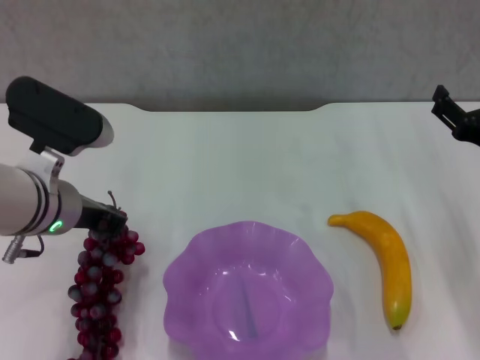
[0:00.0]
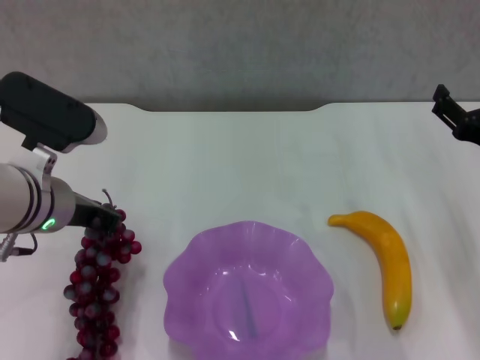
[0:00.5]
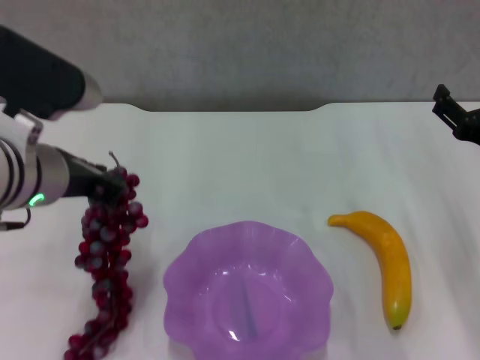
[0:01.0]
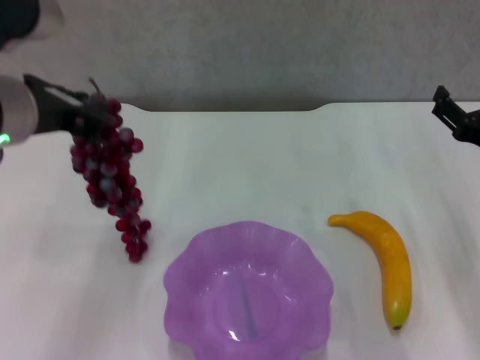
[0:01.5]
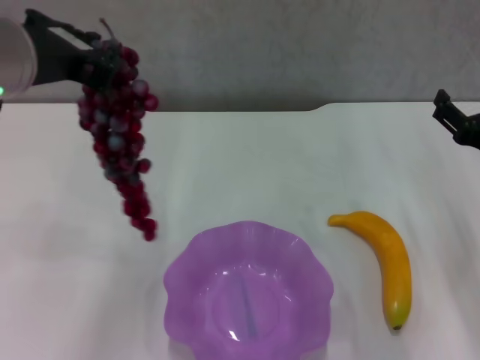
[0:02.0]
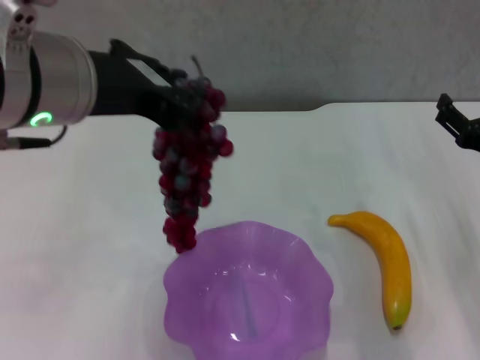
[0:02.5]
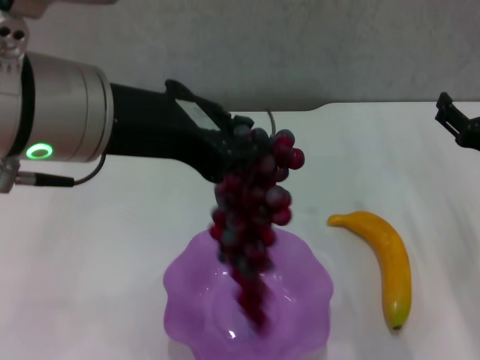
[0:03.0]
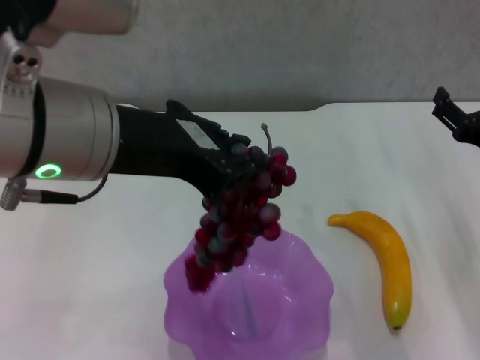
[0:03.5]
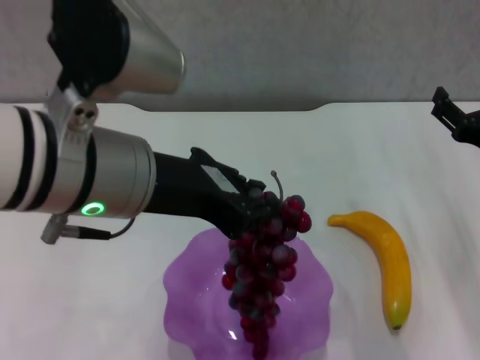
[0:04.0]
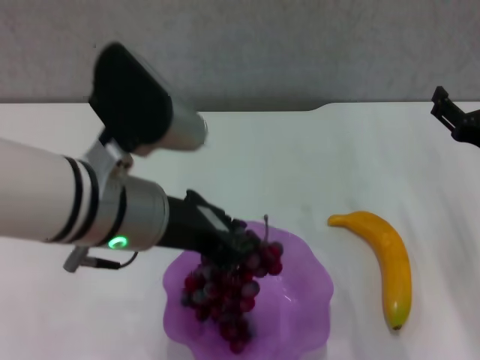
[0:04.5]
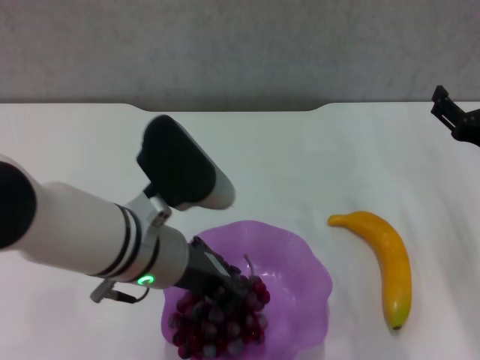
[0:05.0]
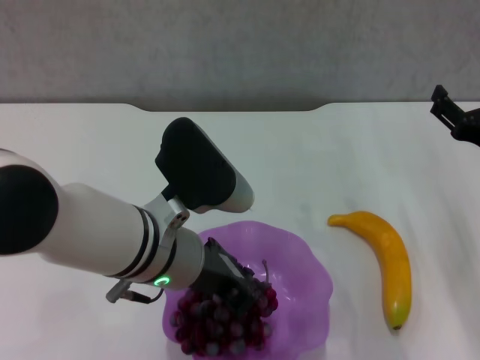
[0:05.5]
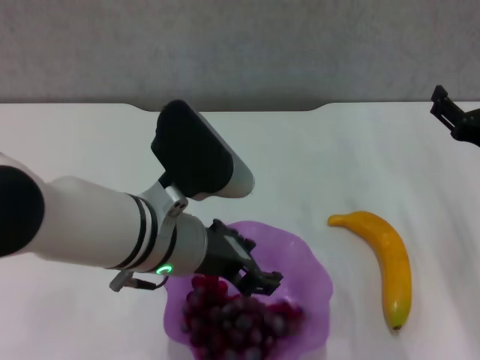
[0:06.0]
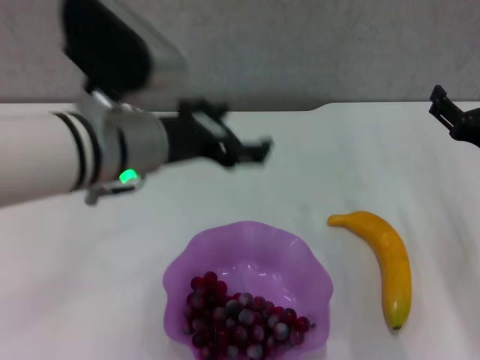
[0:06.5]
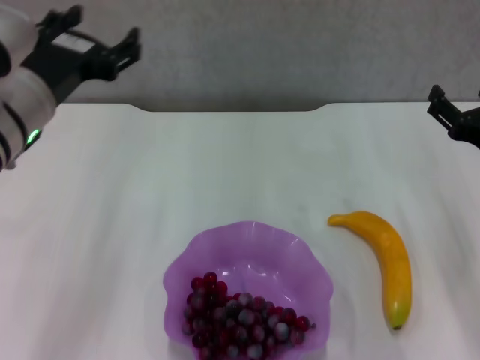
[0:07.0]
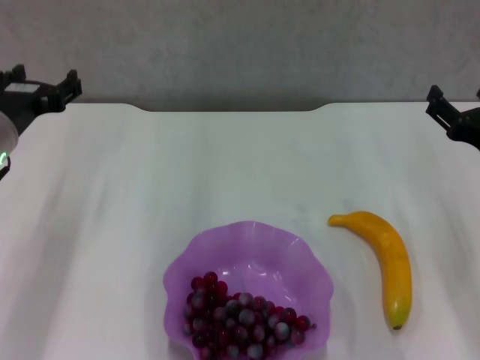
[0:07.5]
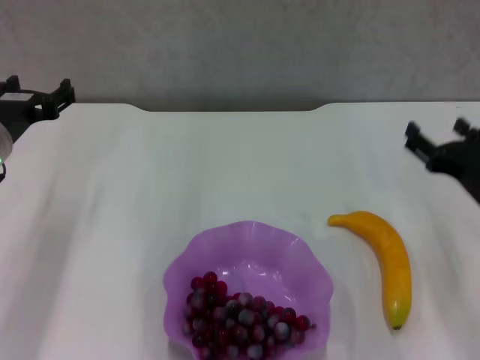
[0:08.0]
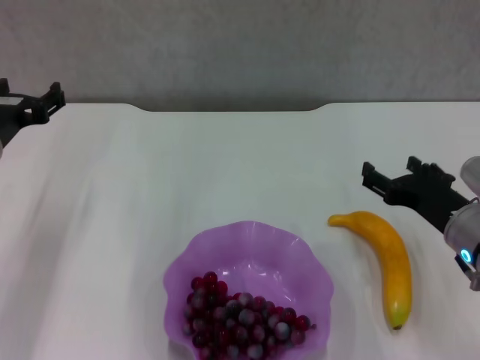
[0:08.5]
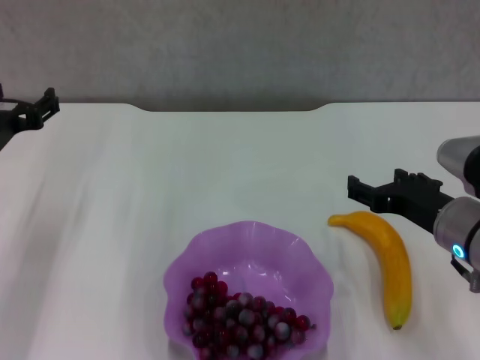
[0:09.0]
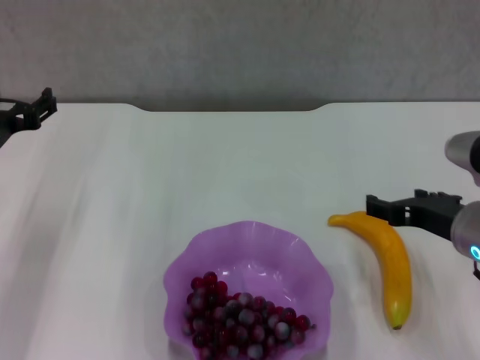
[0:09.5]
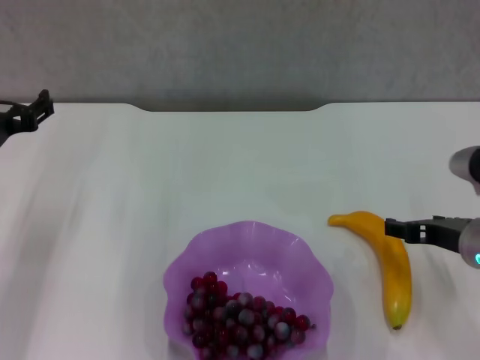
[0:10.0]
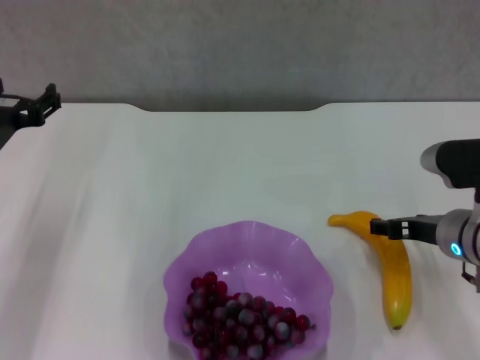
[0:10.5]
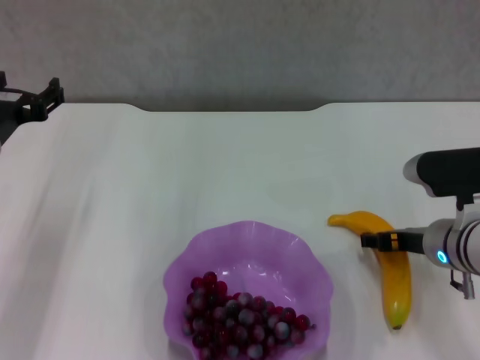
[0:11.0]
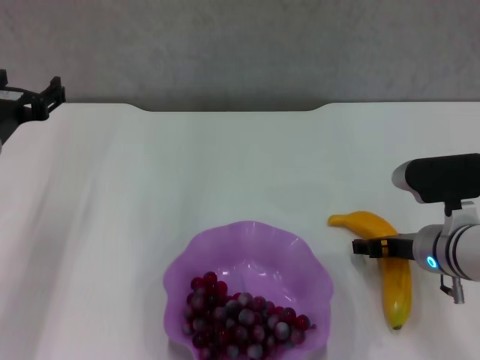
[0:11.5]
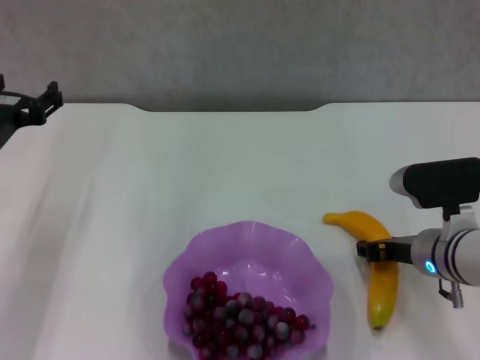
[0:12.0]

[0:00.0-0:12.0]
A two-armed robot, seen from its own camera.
Step, 0:00.0 to 0:06.0: Place the grape in the purple plate with left gripper.
Step, 0:06.5 to 0:11.5: Grasp the banana with right gripper.
0:00.0 to 0:02.0: The left gripper shifts some 15 cm upward.
0:02.0 to 0:04.0: The left gripper shifts some 5 cm to the right.
0:04.0 to 0:06.0: The left gripper goes roughly 10 cm downward.
0:06.0 to 0:08.0: The left gripper goes roughly 20 cm to the left and forward, and opens.
0:10.0 to 0:12.0: The right gripper ends up roughly 5 cm from where it was, and closes.

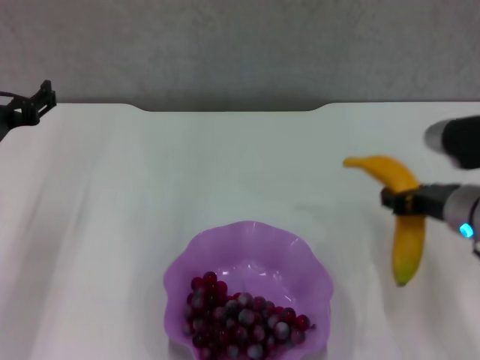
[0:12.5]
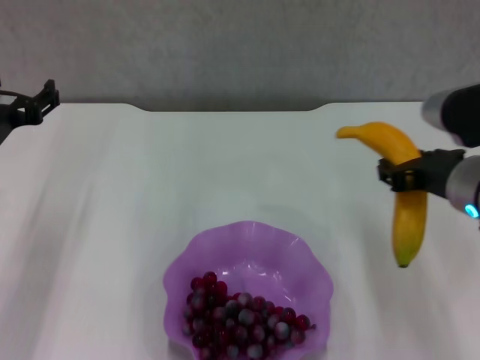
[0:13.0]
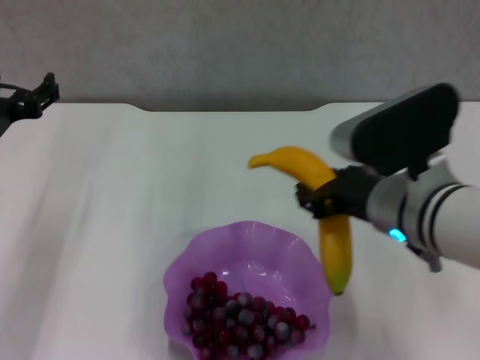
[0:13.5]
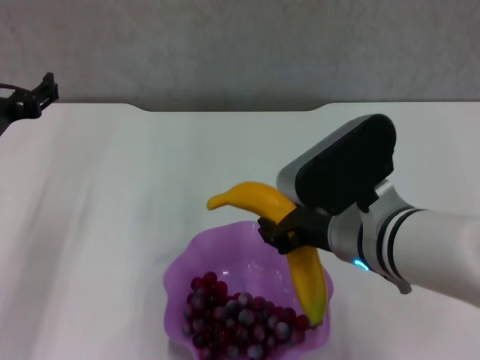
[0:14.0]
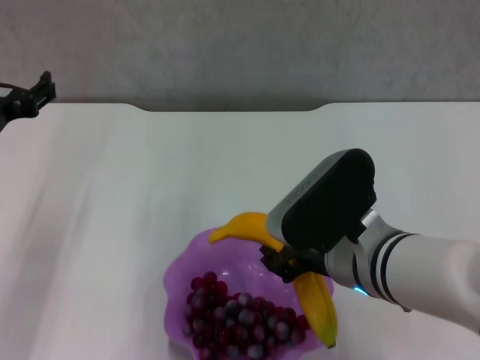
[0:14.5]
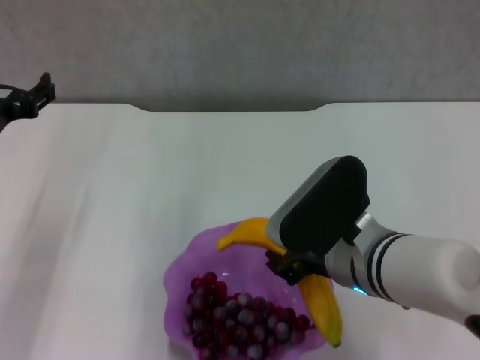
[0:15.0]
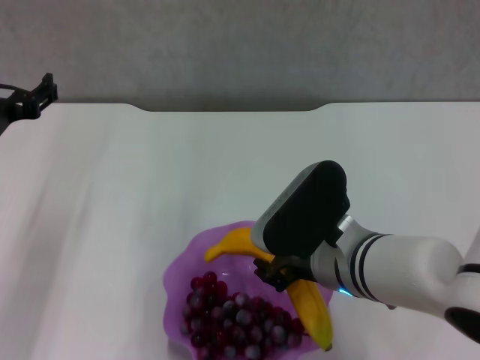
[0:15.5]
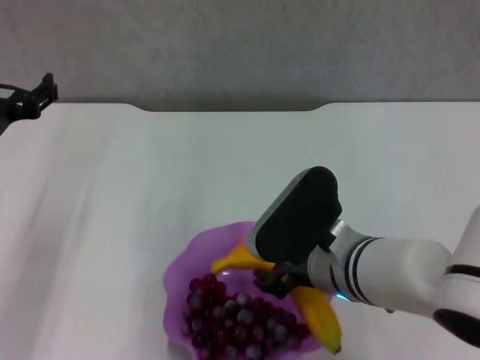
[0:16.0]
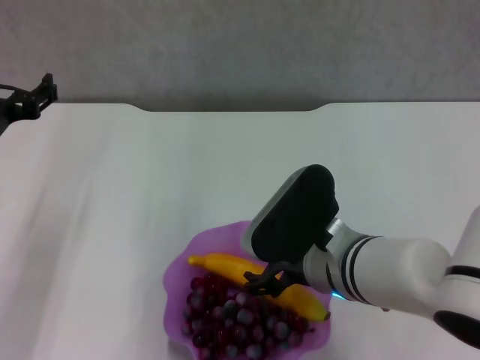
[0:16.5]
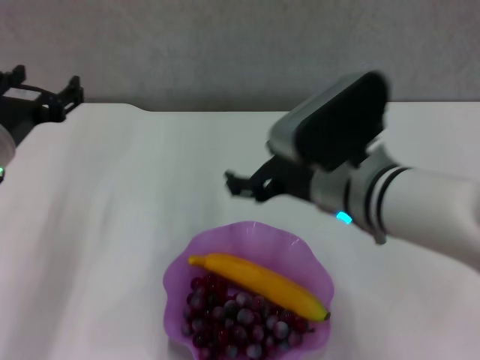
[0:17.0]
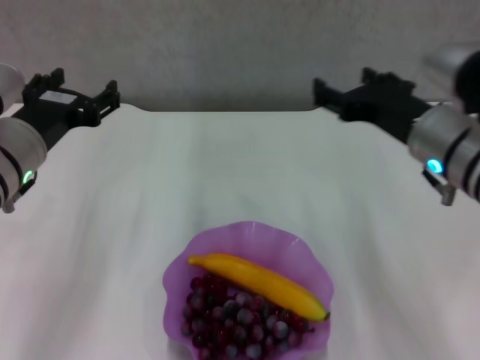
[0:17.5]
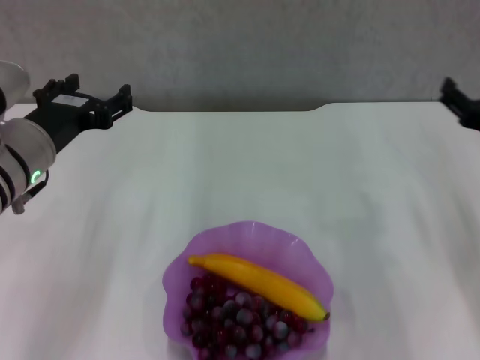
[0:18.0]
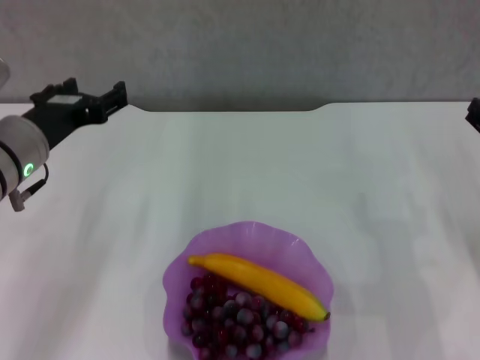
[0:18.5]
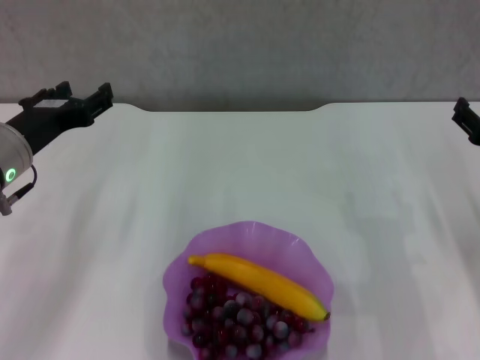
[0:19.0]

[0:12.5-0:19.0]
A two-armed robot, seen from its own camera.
Step, 0:12.5 to 0:16.0: Place the banana in the purple plate with right gripper.
0:12.5 to 0:14.5: The right gripper is displaced to the left and backward by roughly 15 cm.
0:14.5 to 0:17.0: The right gripper ends up about 5 cm from where it was, and opens.
0:17.0 to 0:19.0: The right gripper travels to the right by about 20 cm.
